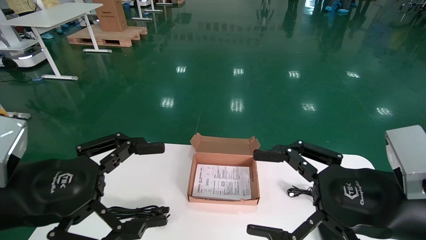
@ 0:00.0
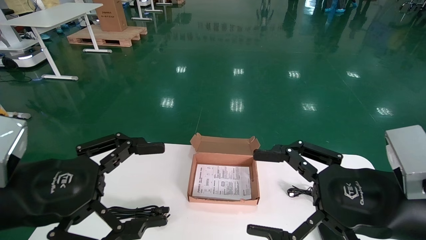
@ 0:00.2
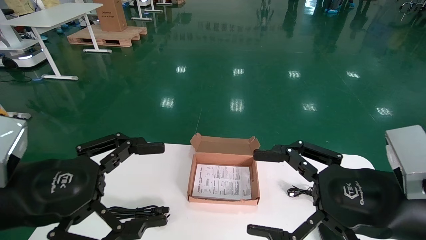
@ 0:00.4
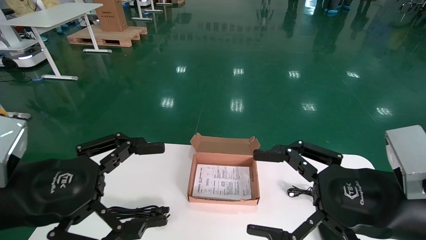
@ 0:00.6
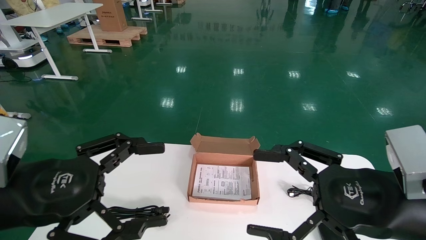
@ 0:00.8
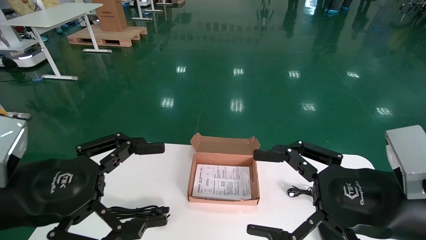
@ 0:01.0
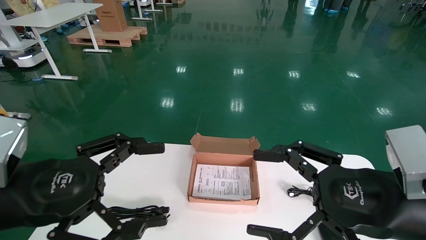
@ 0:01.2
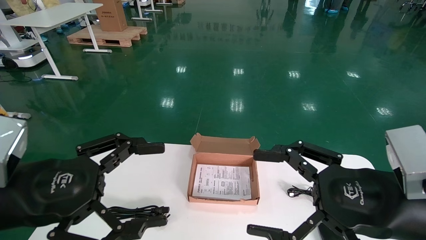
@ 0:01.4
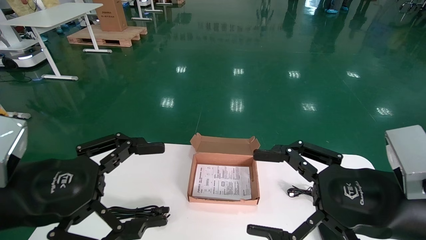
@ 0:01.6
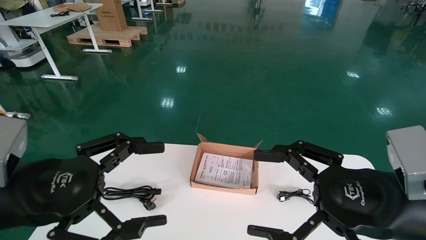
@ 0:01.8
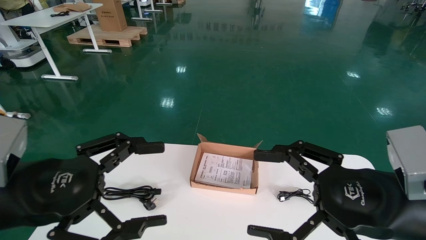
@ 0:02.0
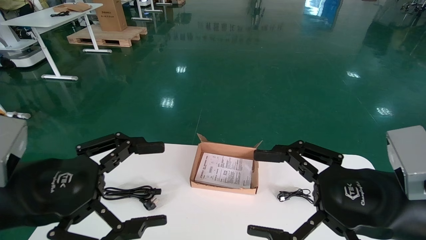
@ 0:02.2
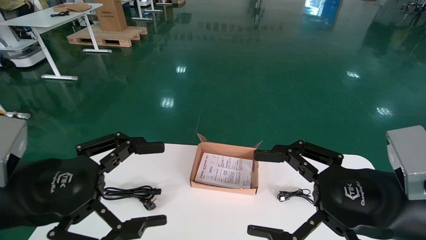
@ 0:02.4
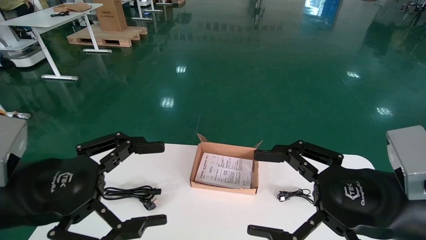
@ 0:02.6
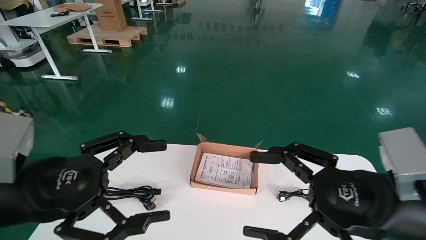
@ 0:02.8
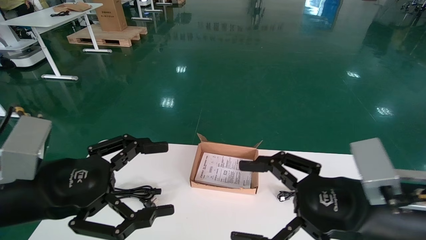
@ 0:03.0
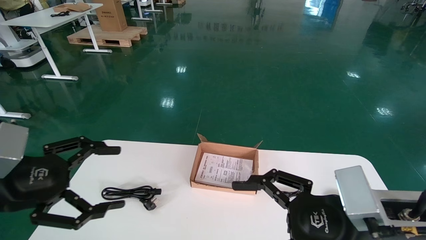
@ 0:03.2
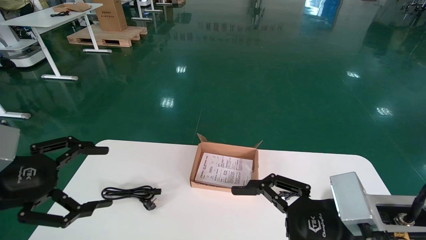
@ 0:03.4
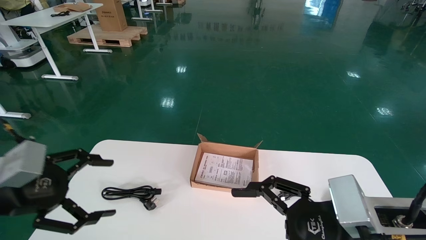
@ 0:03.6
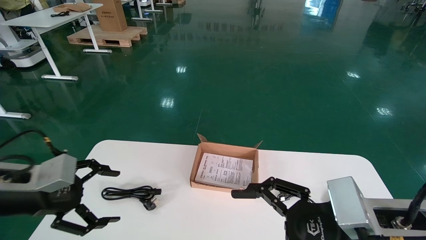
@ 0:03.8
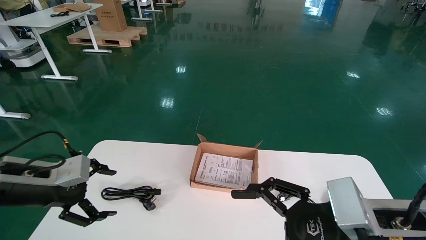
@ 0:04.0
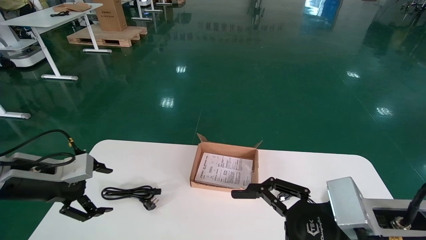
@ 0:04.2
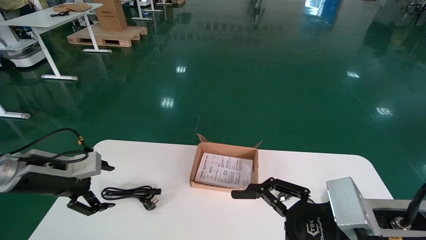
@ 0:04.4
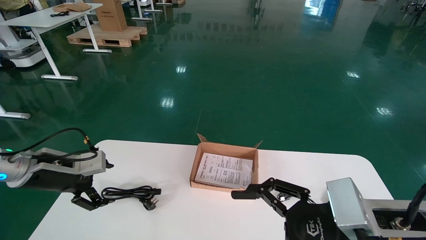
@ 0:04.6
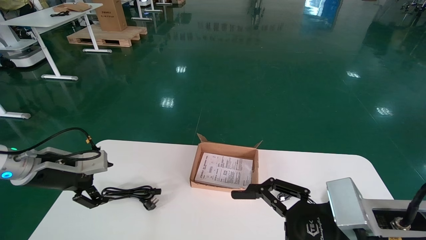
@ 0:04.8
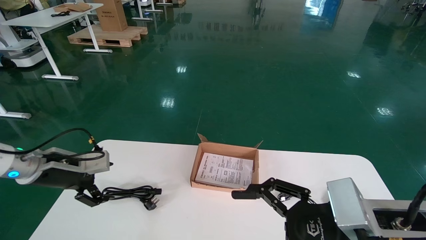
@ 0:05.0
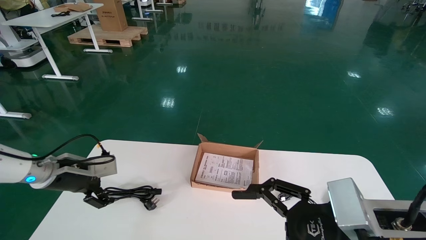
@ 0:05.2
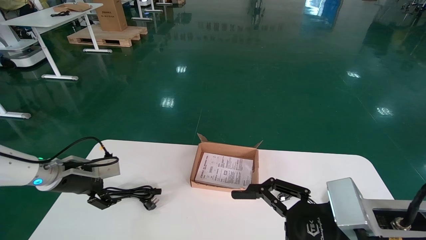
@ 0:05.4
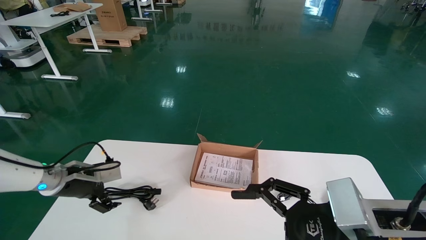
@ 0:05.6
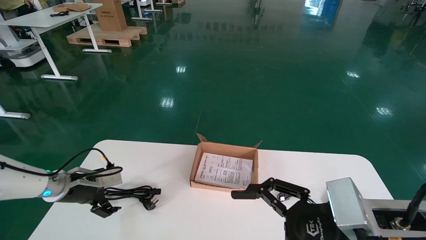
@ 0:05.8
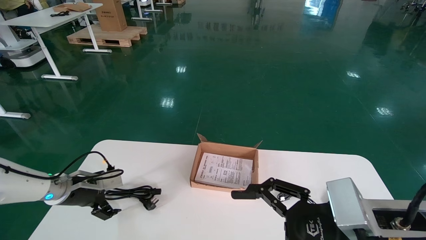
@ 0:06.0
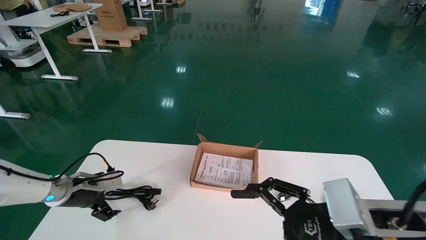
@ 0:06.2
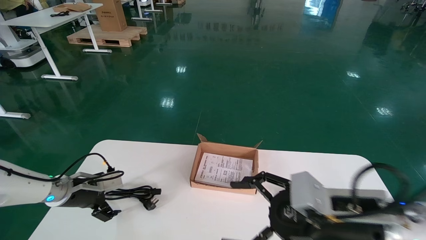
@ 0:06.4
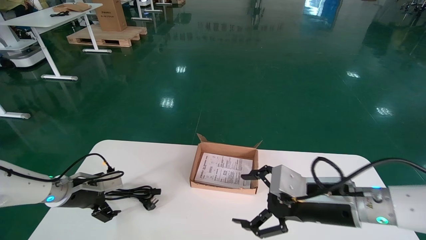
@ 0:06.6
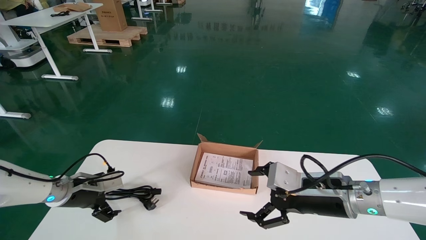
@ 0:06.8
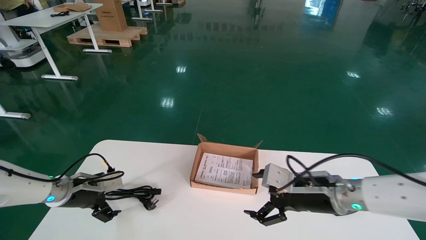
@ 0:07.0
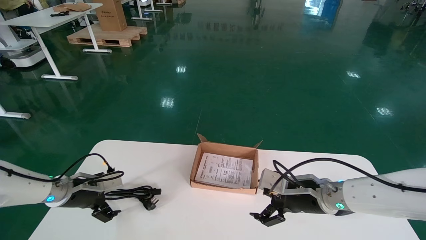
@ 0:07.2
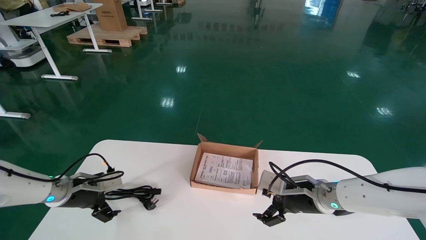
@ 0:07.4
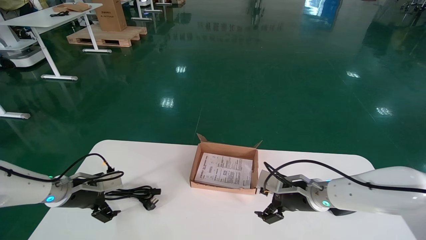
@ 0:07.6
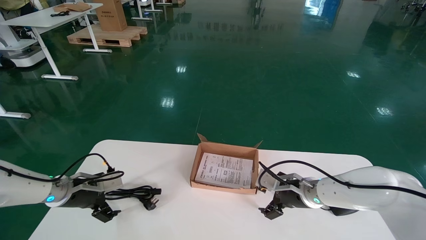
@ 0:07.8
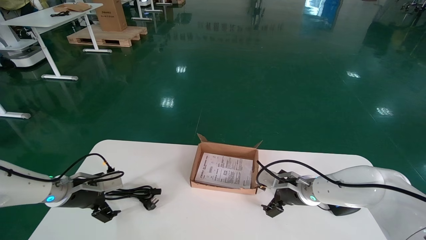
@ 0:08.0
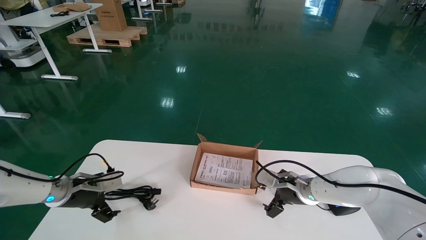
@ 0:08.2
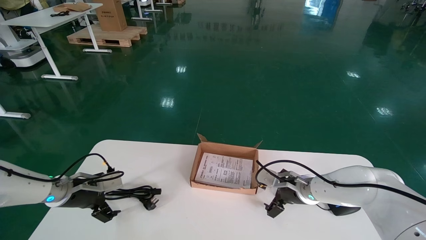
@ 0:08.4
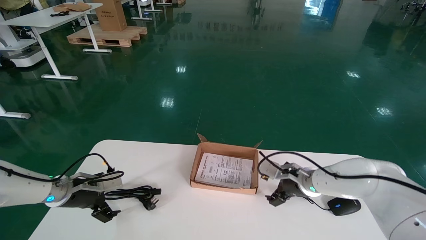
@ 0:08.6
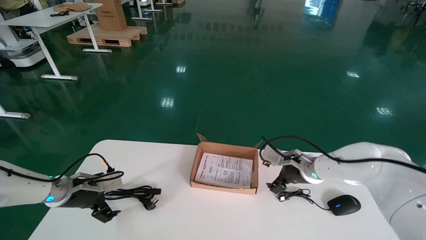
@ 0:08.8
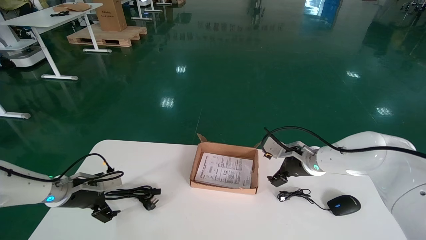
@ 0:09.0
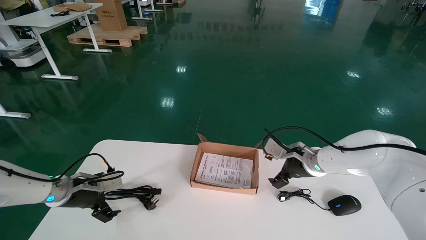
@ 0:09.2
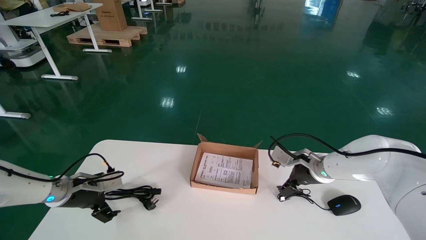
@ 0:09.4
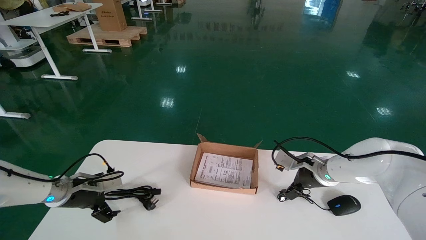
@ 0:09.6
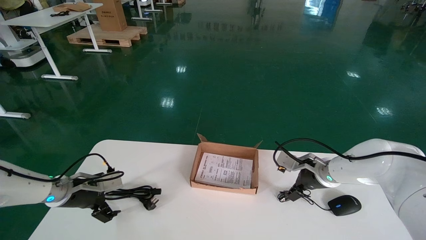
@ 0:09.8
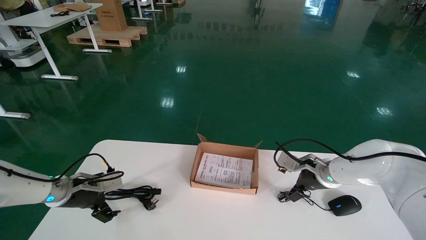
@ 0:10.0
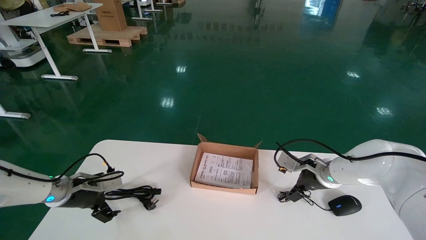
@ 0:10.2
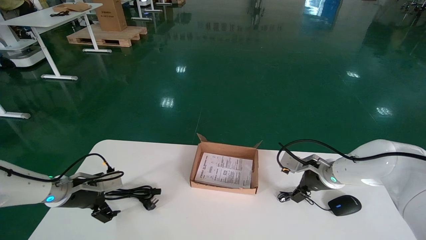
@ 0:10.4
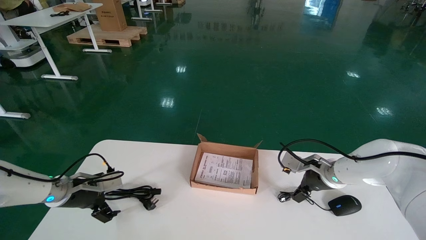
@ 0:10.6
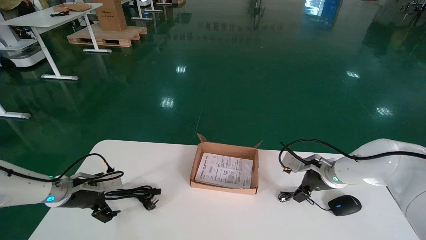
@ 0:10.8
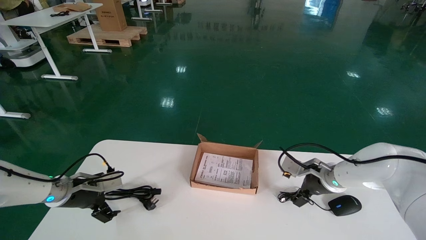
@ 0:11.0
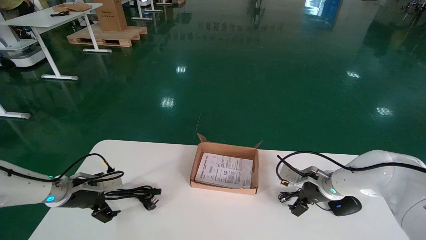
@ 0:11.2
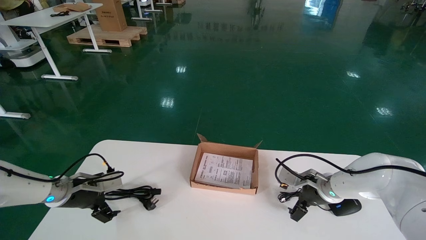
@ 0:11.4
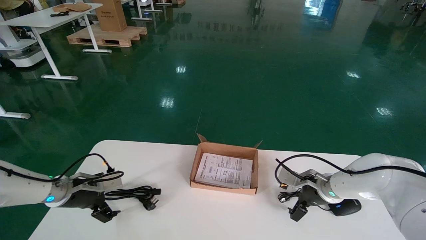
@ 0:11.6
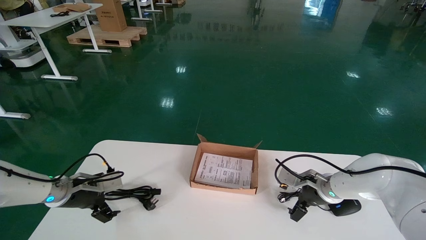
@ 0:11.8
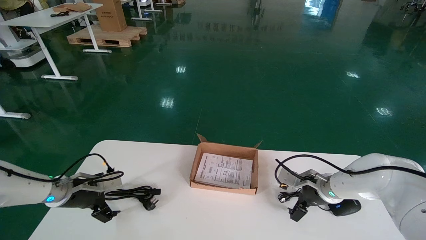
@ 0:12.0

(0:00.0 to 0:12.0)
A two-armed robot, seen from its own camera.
Step, 0:02.6 - 0:11.0: Grab and pick up the mouse and power cord from the accessory packaging area.
0:00.0 - 0:01.6: The two grippers keep their place.
0:03.0 - 0:04.4: The left gripper moves forward and to the left, approximately 15 cm.
0:04.4 - 0:06.0: The left gripper heads forward and downward, covering approximately 15 cm.
0:06.0 - 0:07.6: The right gripper is displaced forward and downward by approximately 20 cm.
0:07.6 - 0:09.0: The right gripper heads forward, covering about 10 cm.
0:09.0 - 0:10.4: The right gripper moves some 5 cm.
0:10.4 - 0:12.0: The grippers move only a little.

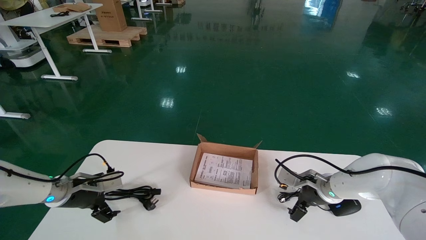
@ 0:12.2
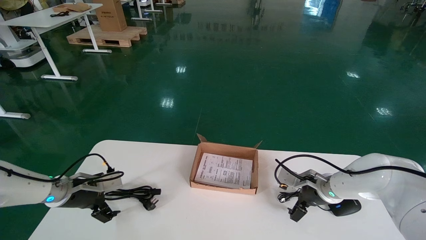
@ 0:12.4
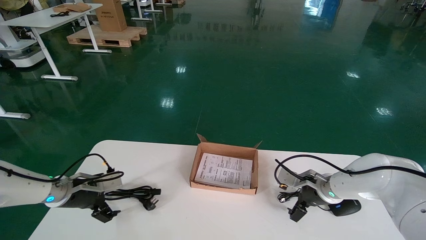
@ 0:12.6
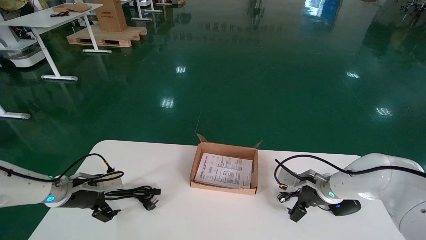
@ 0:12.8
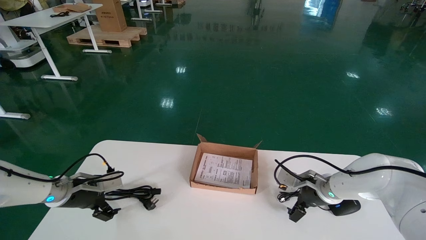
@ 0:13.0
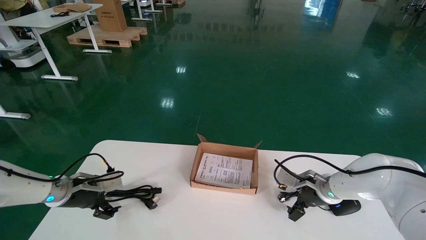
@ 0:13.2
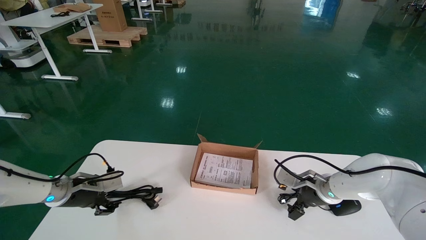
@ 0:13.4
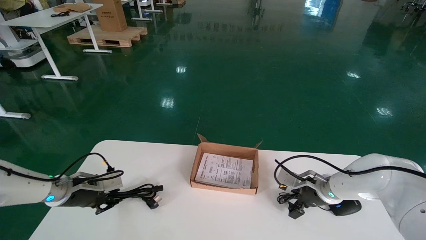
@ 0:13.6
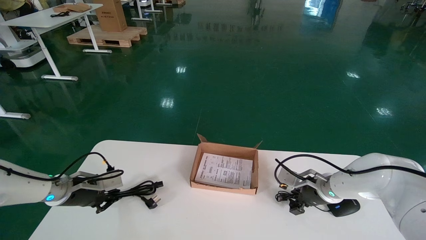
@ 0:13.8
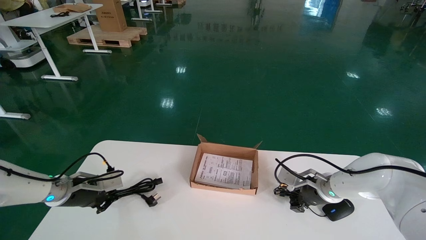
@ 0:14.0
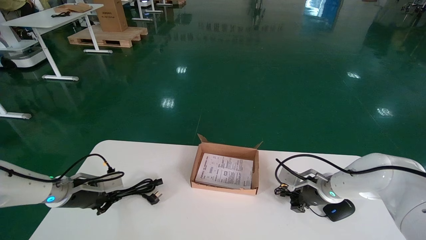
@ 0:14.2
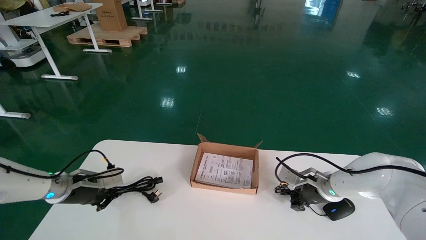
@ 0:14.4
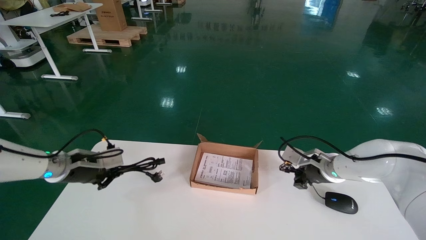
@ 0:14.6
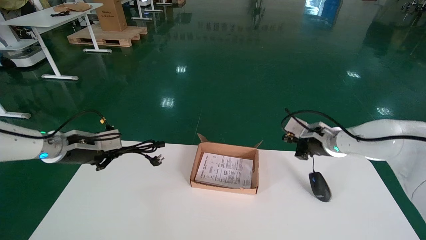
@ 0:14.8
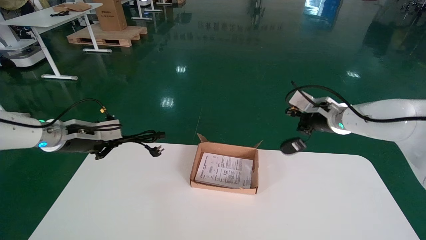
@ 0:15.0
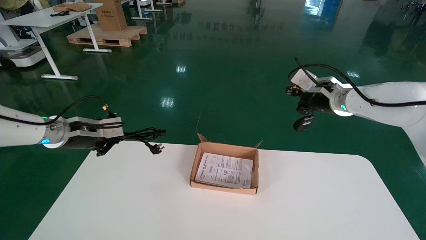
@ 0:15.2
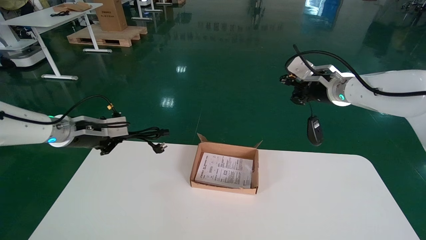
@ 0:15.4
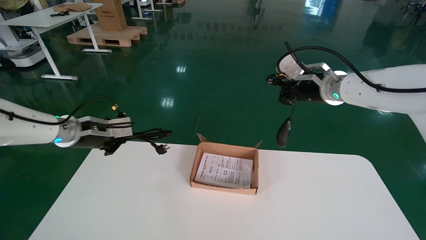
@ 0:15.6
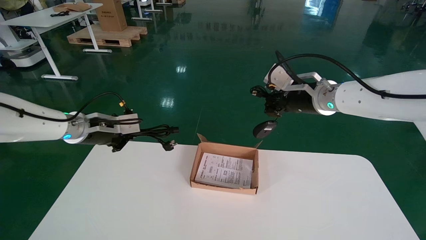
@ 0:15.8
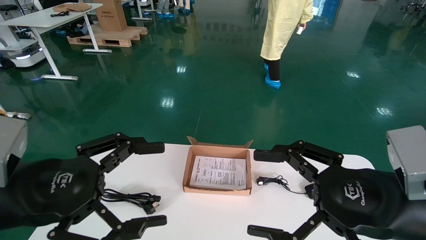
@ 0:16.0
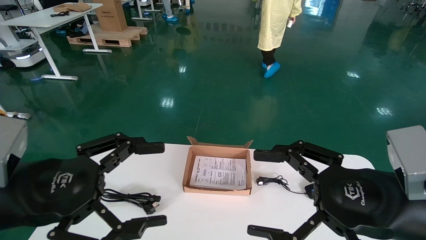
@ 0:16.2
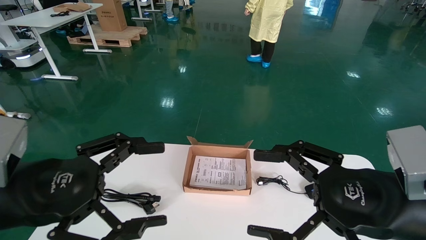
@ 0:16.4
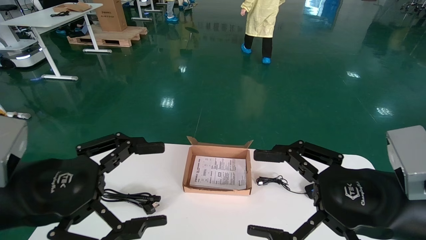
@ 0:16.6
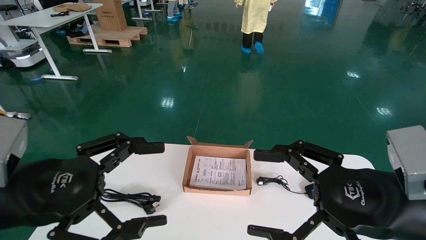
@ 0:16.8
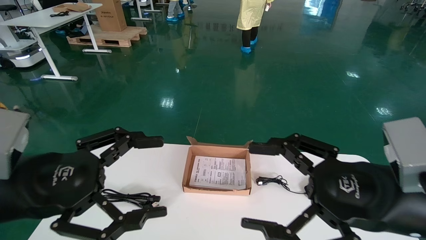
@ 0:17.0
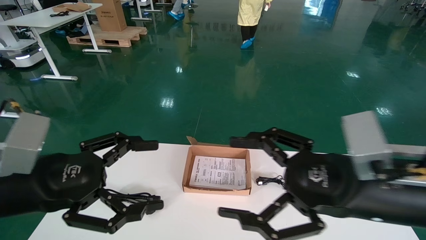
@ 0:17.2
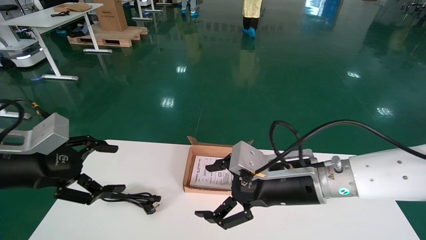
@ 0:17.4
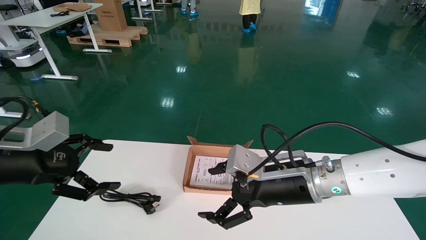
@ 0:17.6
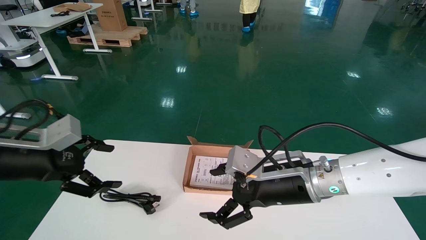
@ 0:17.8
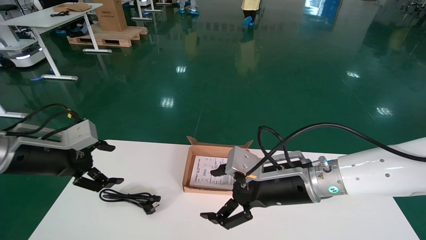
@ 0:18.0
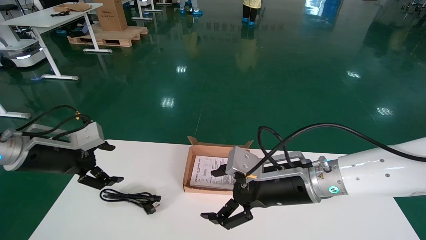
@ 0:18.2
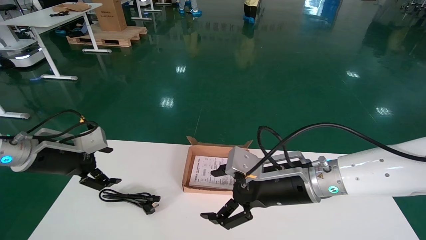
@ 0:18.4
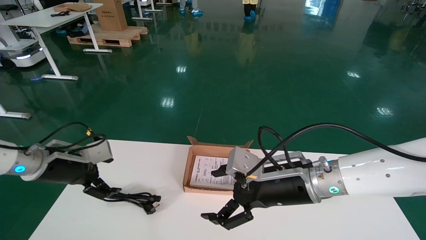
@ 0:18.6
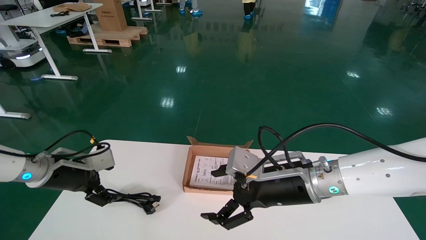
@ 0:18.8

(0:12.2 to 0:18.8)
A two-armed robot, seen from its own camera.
0:12.2 - 0:13.8: Both grippers stay put.
0:13.8 - 0:15.4: Both grippers travel together upward, roughly 15 cm. The left gripper closes up, while the right gripper closes its fingers.
0:15.4 - 0:17.2: Both grippers move backward, about 25 cm. The left gripper opens its fingers. The right gripper opens its fingers.
0:17.2 - 0:18.8: The two grippers go about 15 cm forward and to the left.
